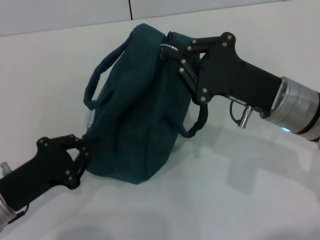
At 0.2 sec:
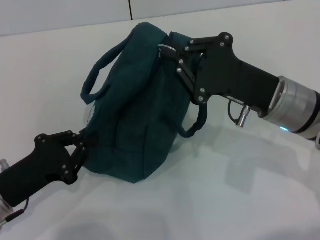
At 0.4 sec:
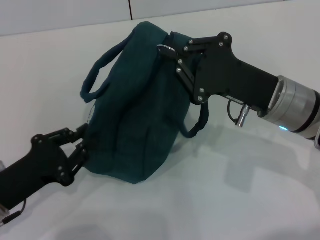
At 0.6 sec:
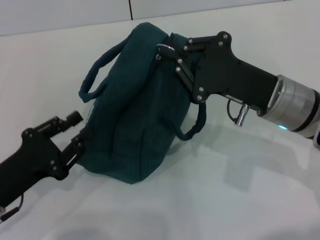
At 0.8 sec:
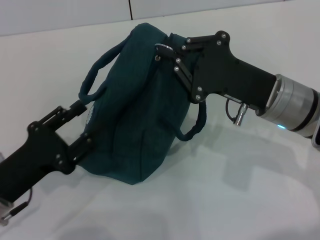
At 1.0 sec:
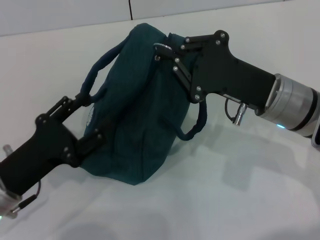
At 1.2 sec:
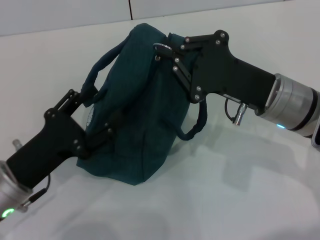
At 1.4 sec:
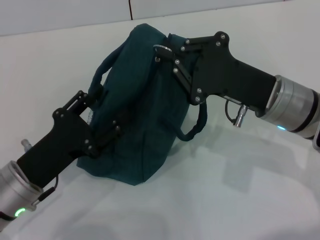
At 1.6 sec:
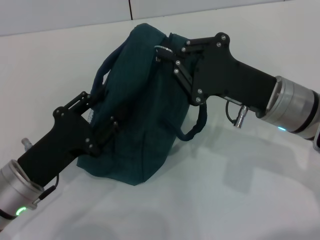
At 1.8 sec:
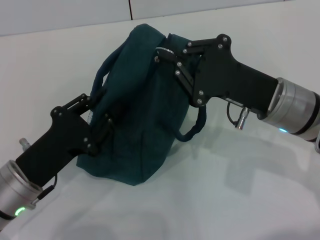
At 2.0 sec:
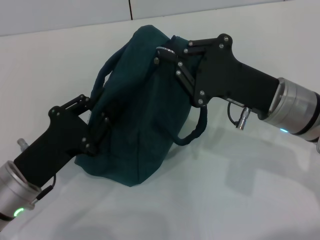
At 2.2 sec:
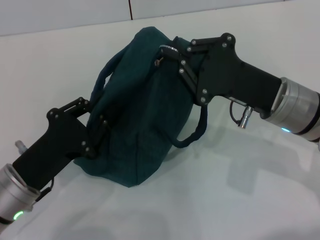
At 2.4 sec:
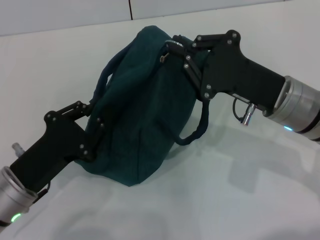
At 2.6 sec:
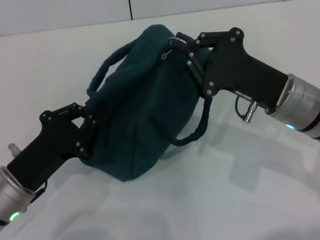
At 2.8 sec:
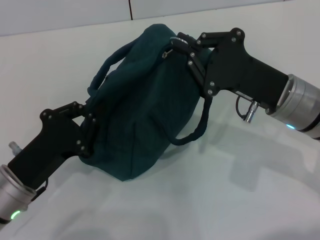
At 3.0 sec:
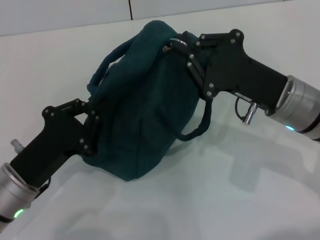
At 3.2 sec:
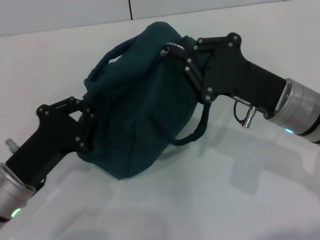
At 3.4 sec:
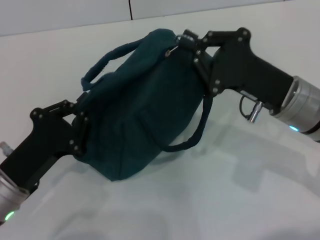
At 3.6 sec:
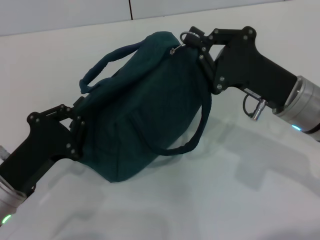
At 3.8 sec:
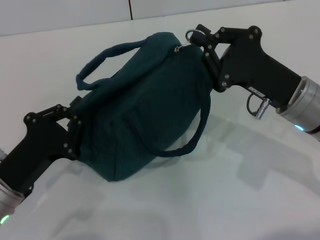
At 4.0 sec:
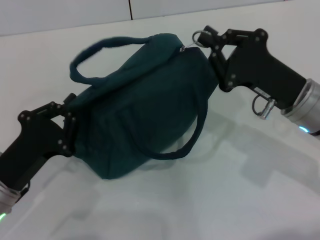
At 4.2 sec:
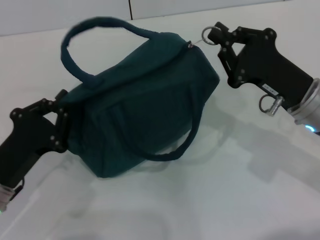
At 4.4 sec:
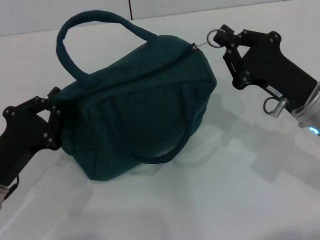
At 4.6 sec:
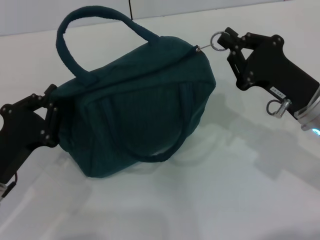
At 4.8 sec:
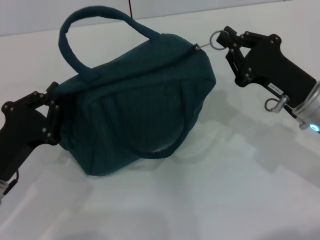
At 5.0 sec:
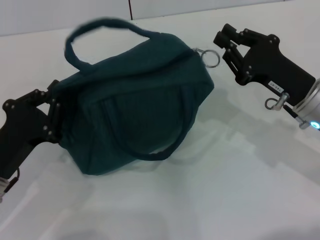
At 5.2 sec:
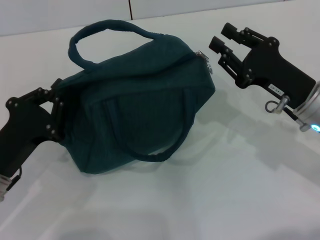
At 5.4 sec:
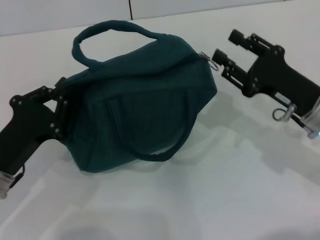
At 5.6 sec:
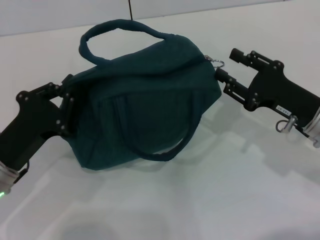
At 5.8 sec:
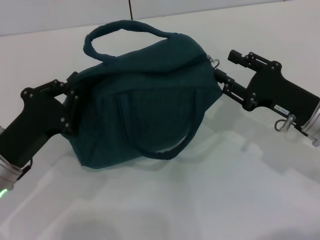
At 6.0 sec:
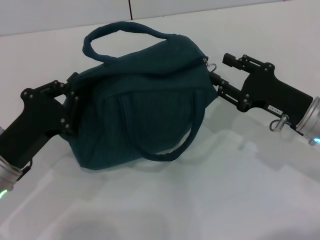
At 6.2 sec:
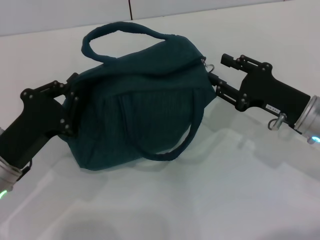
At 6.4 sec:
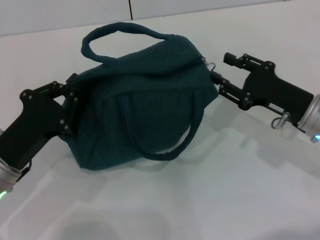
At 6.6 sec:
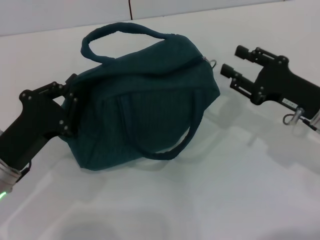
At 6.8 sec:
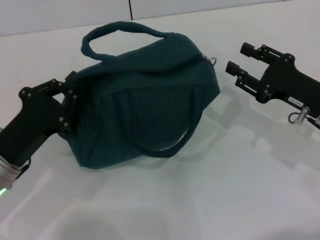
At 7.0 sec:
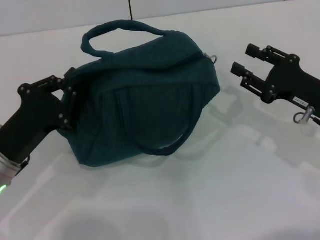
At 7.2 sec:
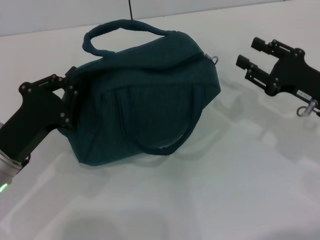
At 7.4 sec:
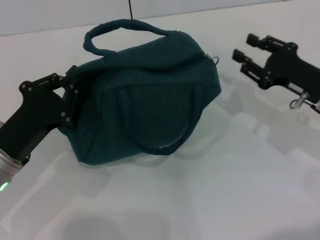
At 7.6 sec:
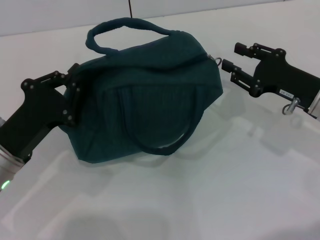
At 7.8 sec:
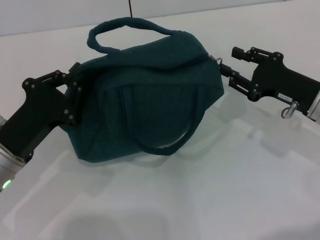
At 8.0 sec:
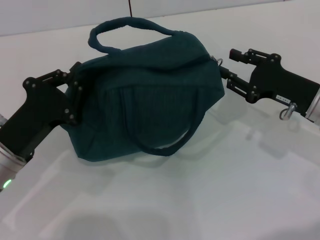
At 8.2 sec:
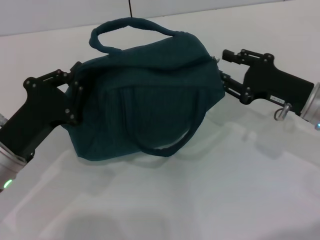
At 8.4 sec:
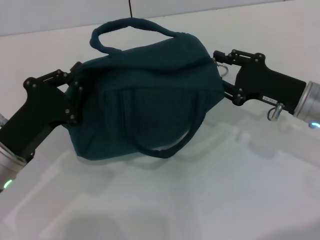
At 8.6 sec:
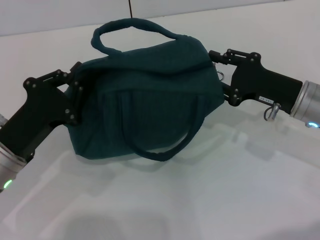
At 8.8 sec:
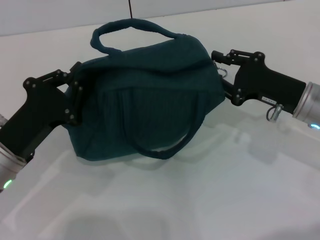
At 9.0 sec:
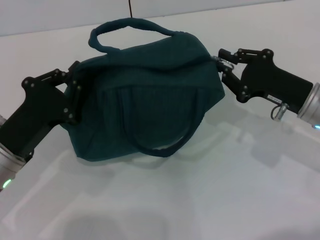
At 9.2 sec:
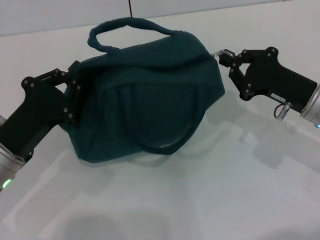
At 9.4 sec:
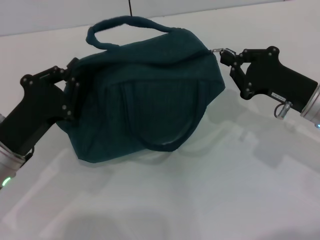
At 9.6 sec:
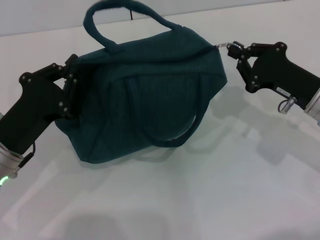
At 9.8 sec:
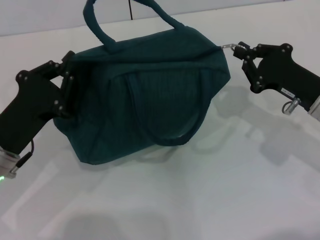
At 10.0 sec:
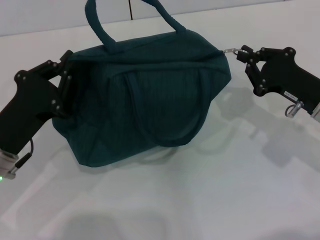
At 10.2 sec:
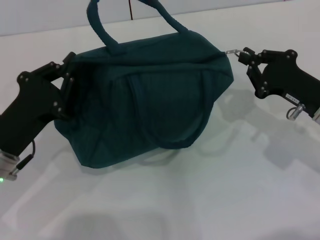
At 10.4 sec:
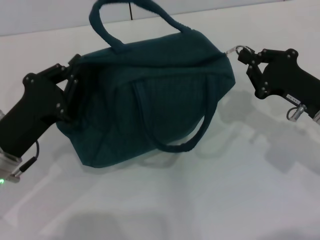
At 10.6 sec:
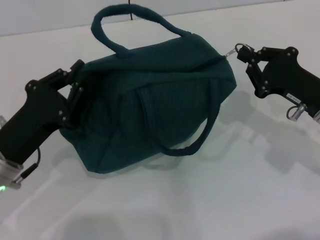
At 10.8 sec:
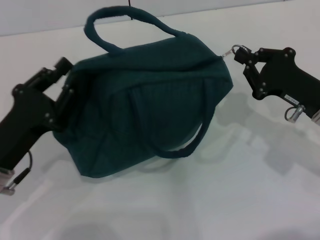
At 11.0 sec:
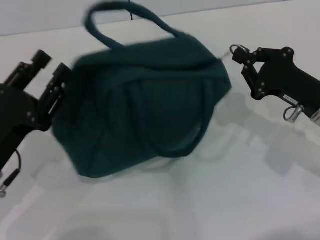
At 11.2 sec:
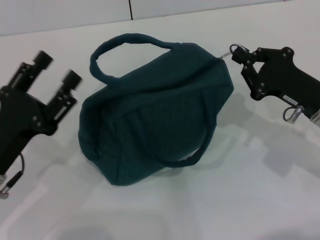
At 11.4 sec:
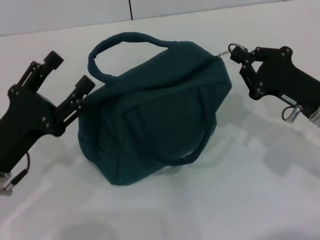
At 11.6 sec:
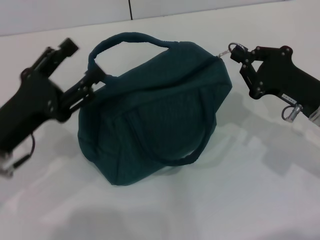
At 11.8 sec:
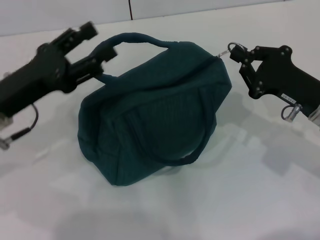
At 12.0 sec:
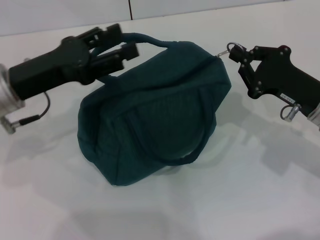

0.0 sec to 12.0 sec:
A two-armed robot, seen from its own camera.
0.0 sec to 1.6 sec: The left gripper opens.
1.6 sec to 3.0 sec: The left gripper closes.
4.4 sec to 6.0 sec: The right gripper opens up.
6.0 sec to 9.0 sec: The grippers stay close to where they were, moving slightly.
9.0 sec to 10.4 sec: The right gripper closes.
10.4 sec to 12.0 sec: The left gripper is displaced forward and upward by approximately 10 cm, and opens up.

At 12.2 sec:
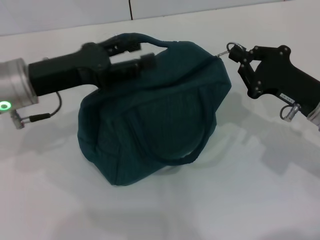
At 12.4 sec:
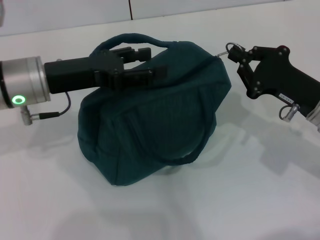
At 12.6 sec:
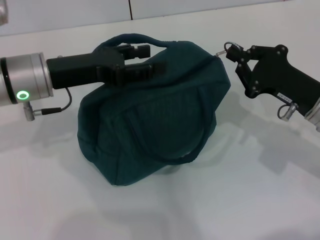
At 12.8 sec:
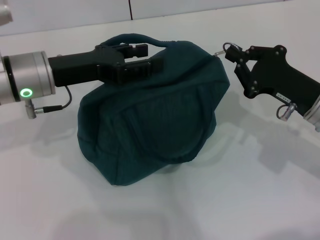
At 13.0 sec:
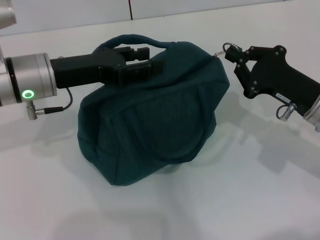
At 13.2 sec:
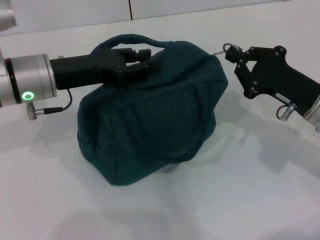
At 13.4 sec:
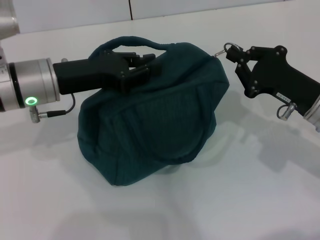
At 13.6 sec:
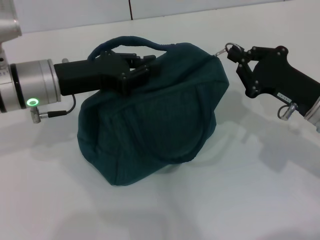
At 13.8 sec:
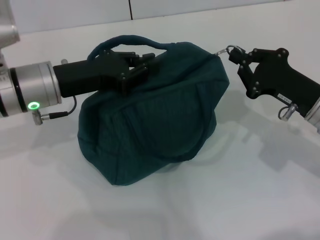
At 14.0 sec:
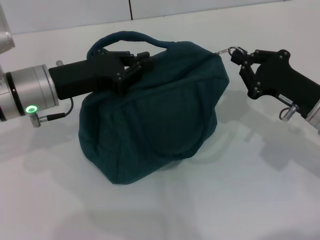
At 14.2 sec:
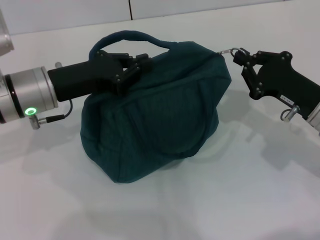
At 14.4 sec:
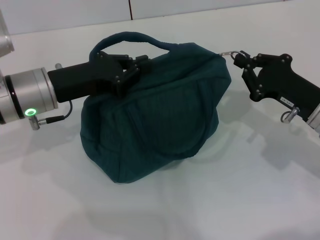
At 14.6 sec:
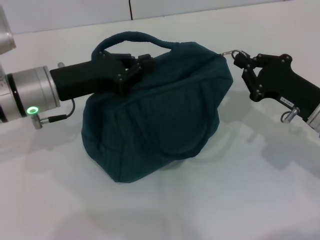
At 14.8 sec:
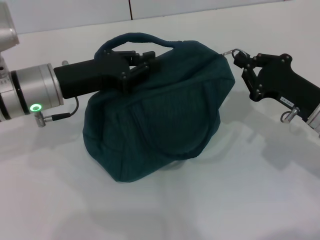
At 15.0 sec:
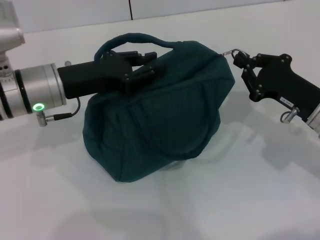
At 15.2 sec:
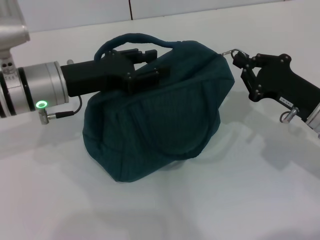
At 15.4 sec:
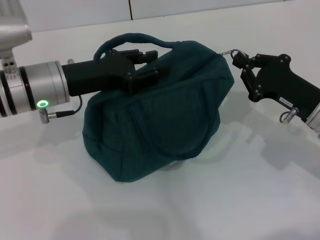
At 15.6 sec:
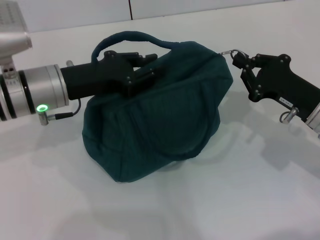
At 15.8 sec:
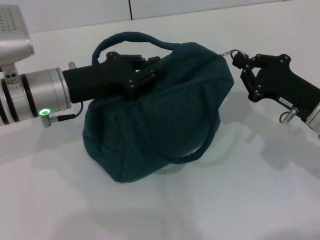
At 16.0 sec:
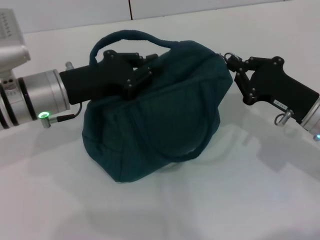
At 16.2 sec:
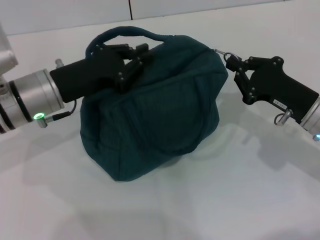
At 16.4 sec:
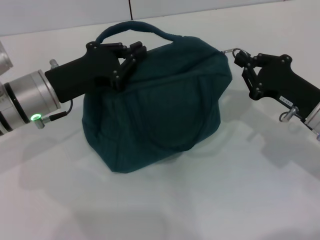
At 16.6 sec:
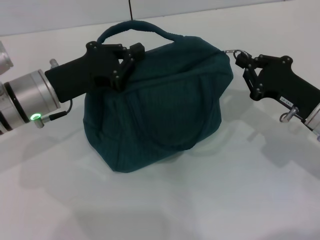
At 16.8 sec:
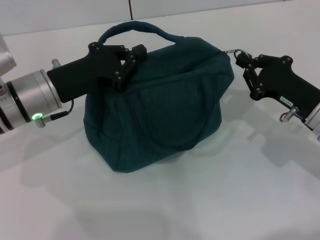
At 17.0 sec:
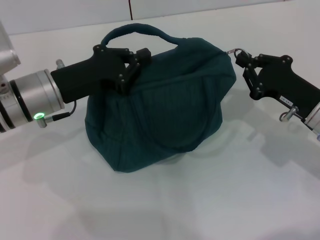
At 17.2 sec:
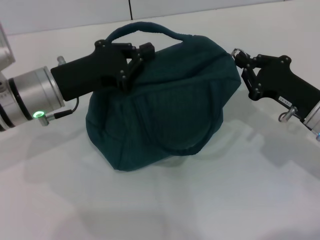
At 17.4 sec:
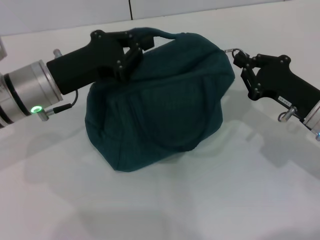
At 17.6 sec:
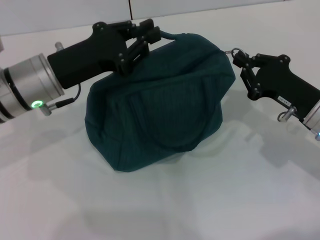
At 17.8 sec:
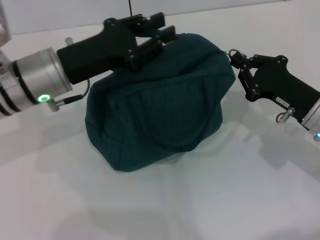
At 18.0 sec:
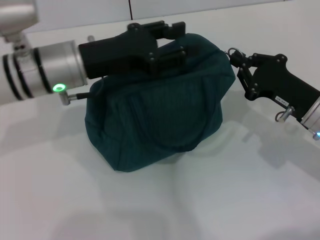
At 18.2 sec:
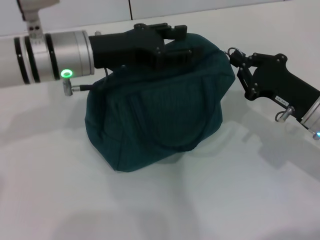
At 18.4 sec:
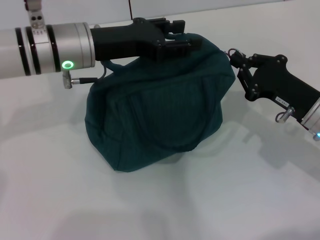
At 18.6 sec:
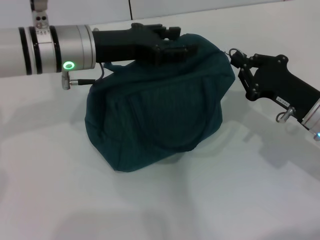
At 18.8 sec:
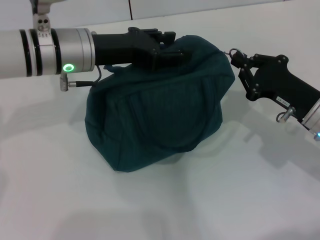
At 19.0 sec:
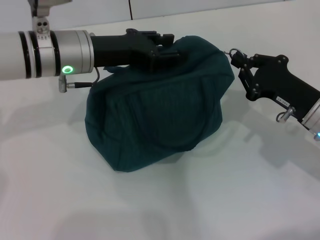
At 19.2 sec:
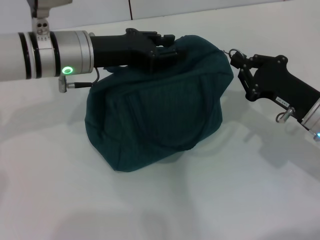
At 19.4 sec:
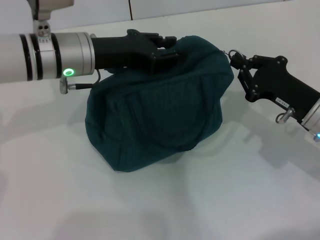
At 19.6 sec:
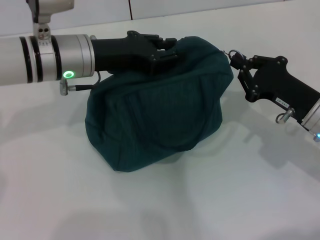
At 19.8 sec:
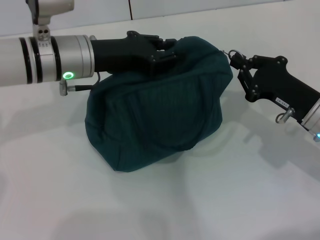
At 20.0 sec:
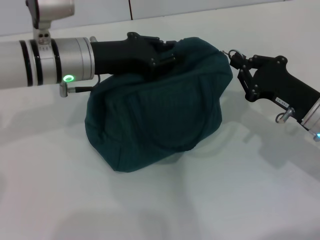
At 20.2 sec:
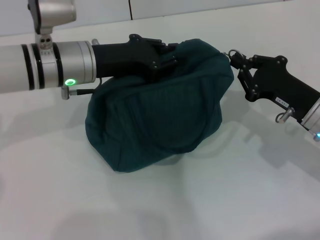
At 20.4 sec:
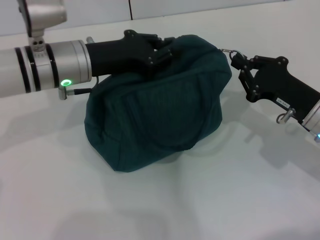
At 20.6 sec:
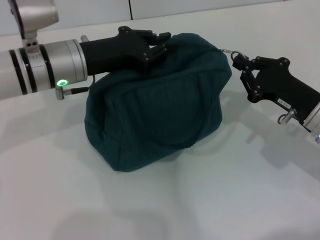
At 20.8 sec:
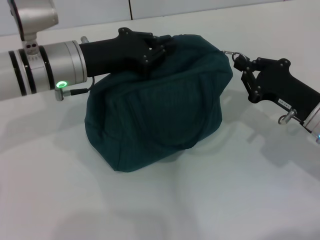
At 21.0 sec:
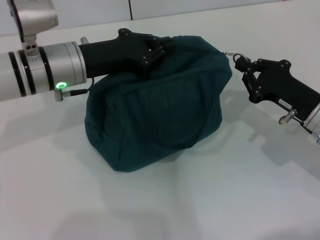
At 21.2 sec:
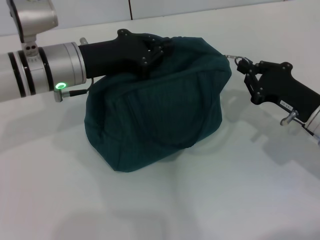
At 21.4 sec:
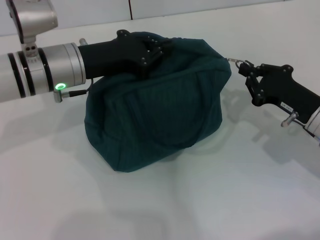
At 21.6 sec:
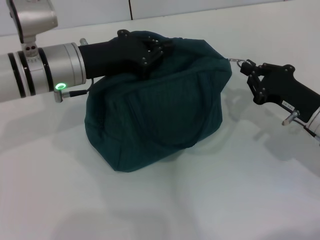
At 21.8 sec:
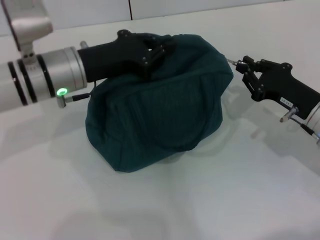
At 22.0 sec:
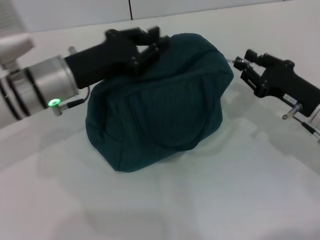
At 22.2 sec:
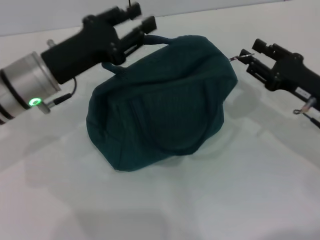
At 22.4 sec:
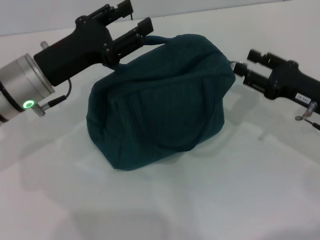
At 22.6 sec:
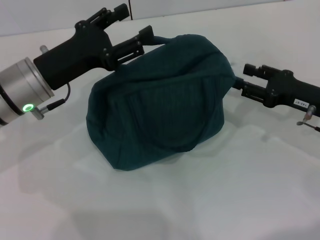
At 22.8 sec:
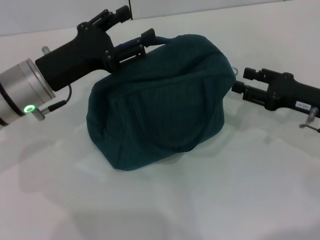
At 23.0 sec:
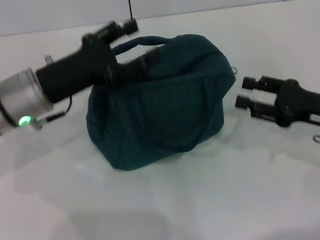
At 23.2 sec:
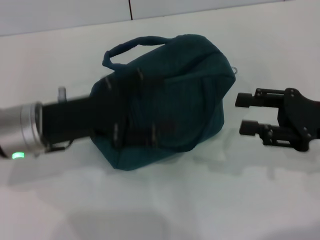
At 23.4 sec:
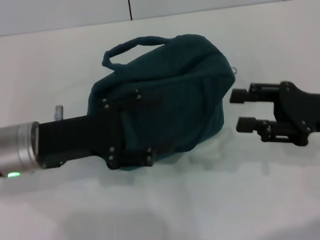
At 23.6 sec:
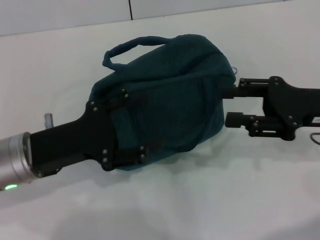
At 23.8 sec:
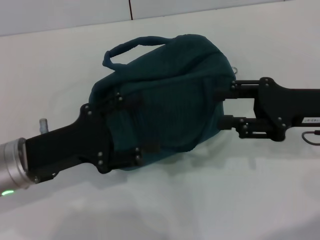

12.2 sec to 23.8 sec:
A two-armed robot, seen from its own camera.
Step, 12.2 sec to 22.0 sec: Hold the lunch bag with your left hand.
Step, 22.2 sec to 22.4 sec: Zip up the lunch bag with your right hand.
12.2 sec to 13.6 sec: The left gripper closes.
13.6 sec to 15.0 sec: There are only small adjustments of the grippers.
15.0 sec to 16.6 sec: The left gripper opens, then closes again.
16.6 sec to 18.0 sec: The left gripper ends up roughly 5 cm from where it was.
18.0 sec to 19.4 sec: There are only small adjustments of the grippers.
19.4 sec to 21.0 sec: The left gripper closes its fingers.
21.0 sec to 22.4 sec: The left gripper shifts by some 5 cm, and opens its fingers. Meanwhile the right gripper opens up.
22.4 sec to 23.8 sec: The right gripper goes some 5 cm upward, while the left gripper travels backward by roughly 10 cm, and opens.
